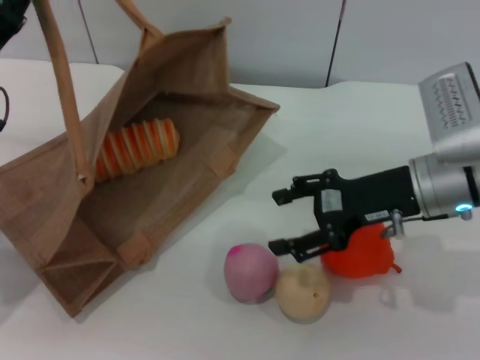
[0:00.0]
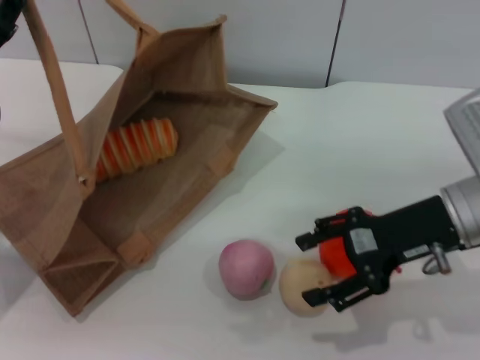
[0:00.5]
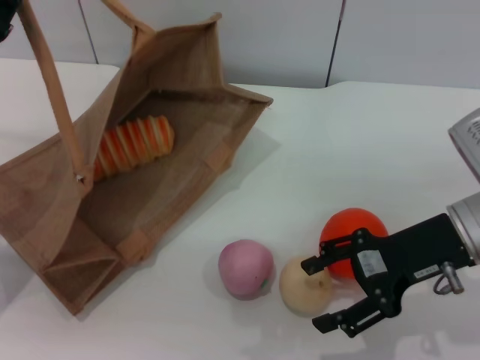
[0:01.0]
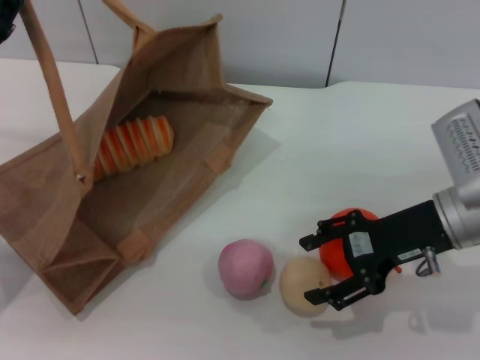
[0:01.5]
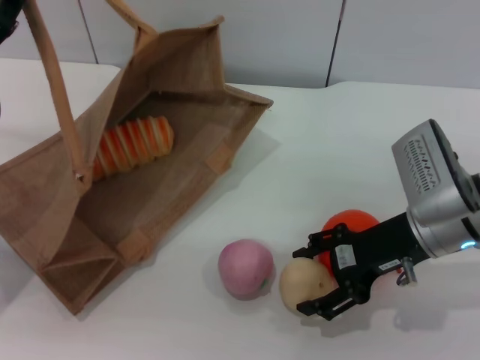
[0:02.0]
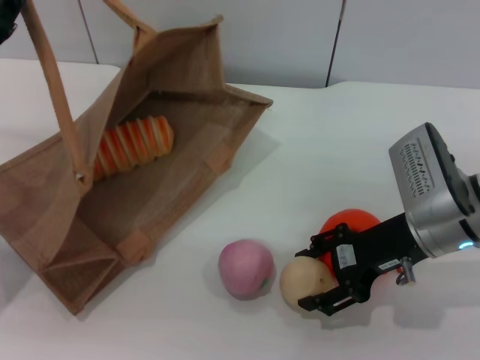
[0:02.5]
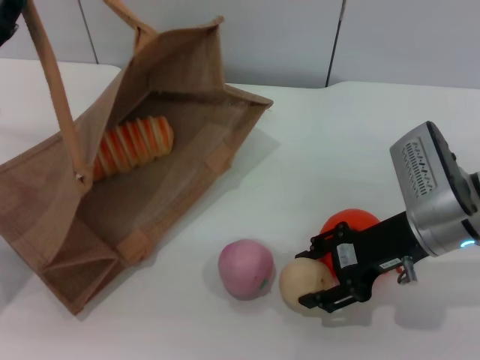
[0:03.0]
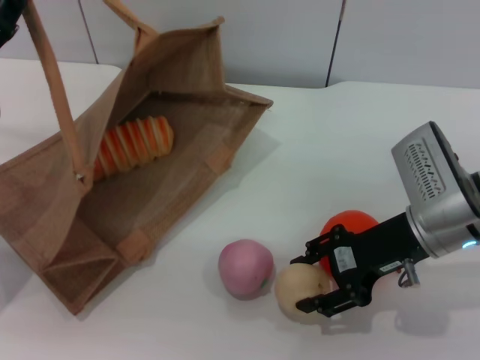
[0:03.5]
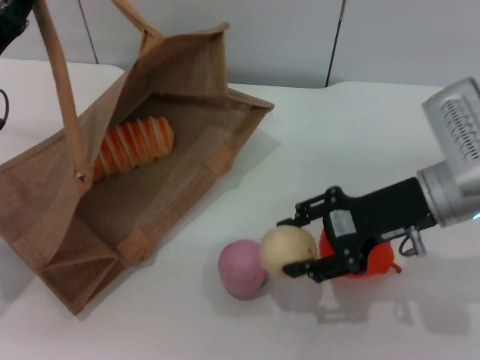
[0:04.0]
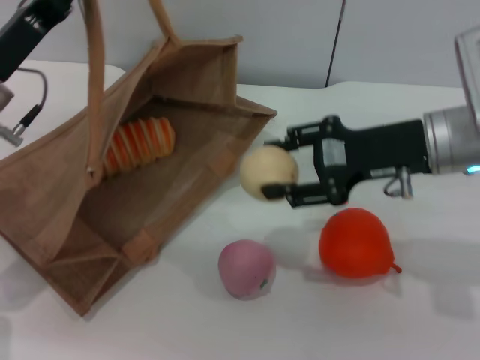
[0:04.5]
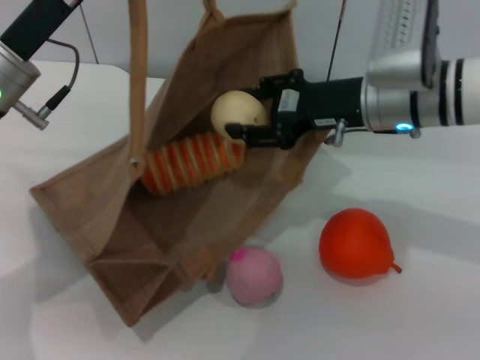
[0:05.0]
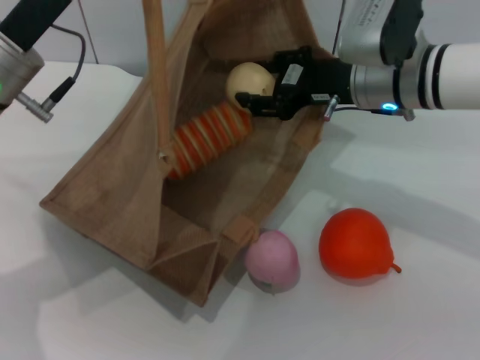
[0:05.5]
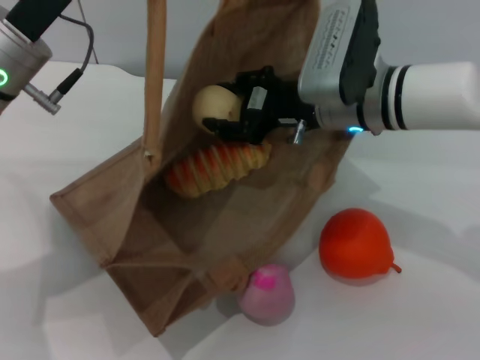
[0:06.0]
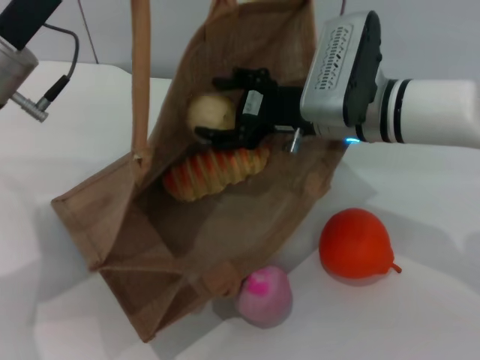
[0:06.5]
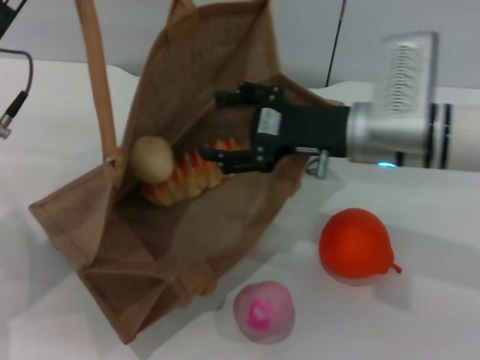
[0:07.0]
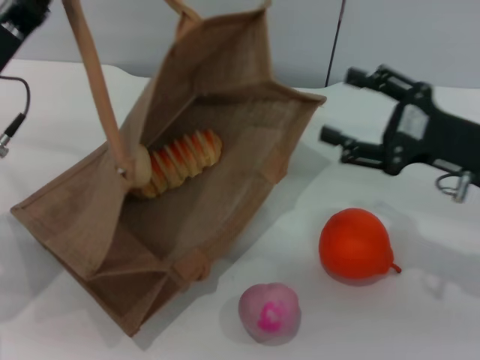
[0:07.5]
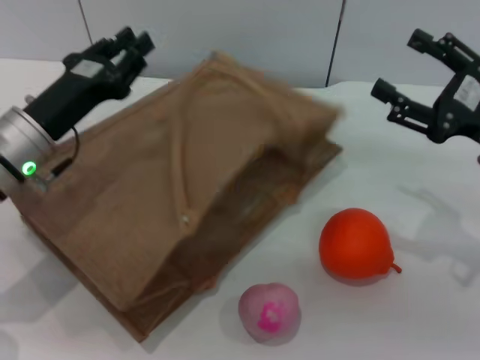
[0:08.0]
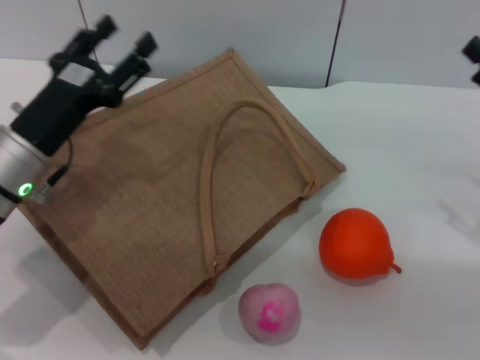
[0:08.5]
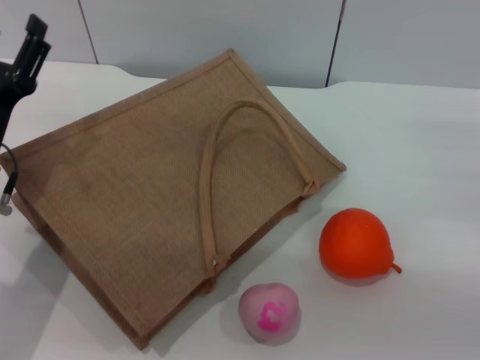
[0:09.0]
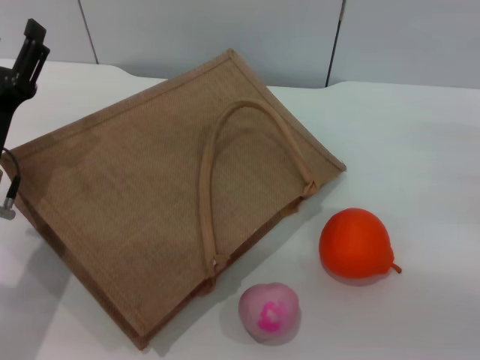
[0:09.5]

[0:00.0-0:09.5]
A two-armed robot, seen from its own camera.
Task of the whole recording: pick up the bread and egg yolk pastry from the table and place it in the brown handbag.
Step, 0:00.0 to 0:04.0: Pick up the egg yolk pastry with the right gripper.
Step, 0:04.5 to 0:07.0: Place the egg yolk pastry into the woven bag with the right gripper.
Step, 0:07.5 to 0:08.5: Lower the woven bag with the left gripper to close it.
0:02.0 to 0:04.0: The right gripper closes up.
0:04.0 to 0:05.5: The left gripper shifts roughly 10 cm to the right and upward, while the right gripper travels forward and to the left by roughly 10 cm.
0:05.5 to 0:07.5: The left gripper ends up about 5 cm from where it was. The right gripper shifts about 15 cm to the right and backward, and opens its fingers.
0:07.5 to 0:09.5: The right gripper moves to the right, some 10 cm; the left gripper moves downward, some 5 cm, and opens its fingers.
